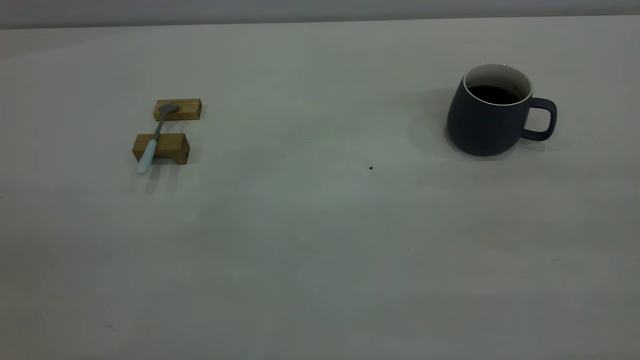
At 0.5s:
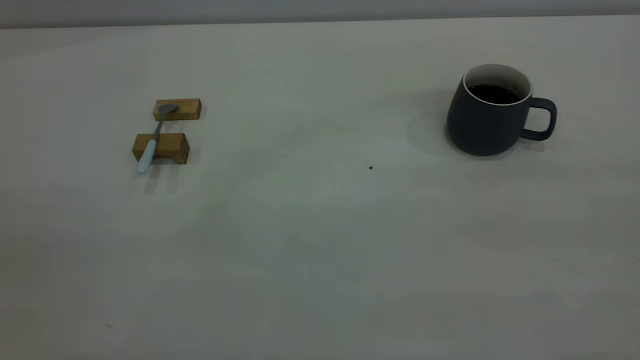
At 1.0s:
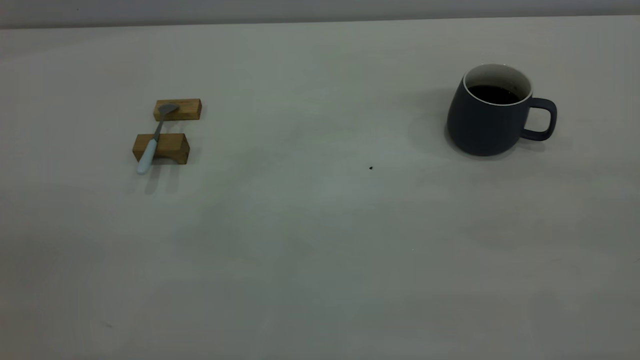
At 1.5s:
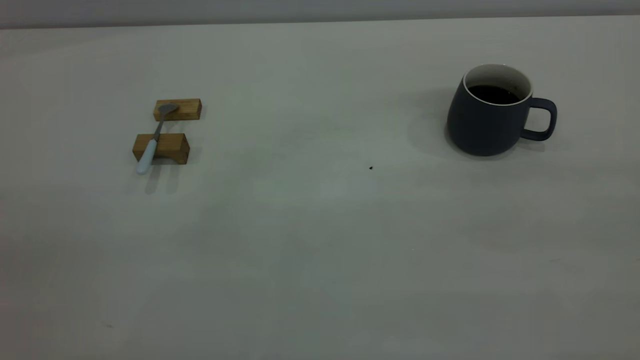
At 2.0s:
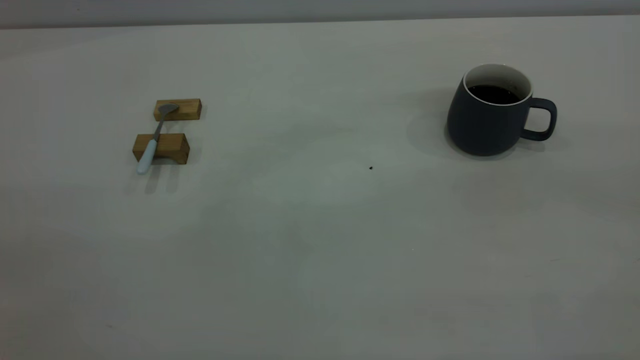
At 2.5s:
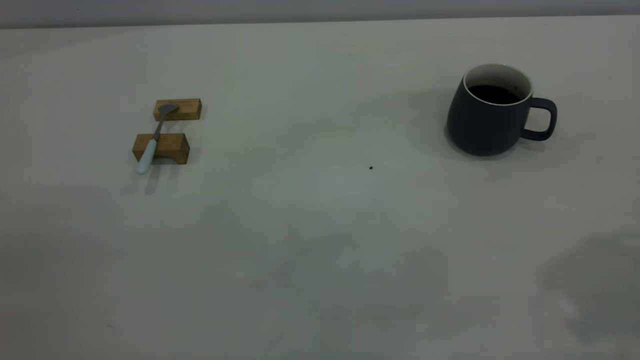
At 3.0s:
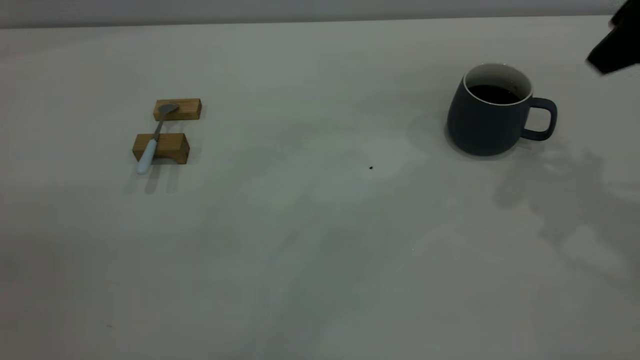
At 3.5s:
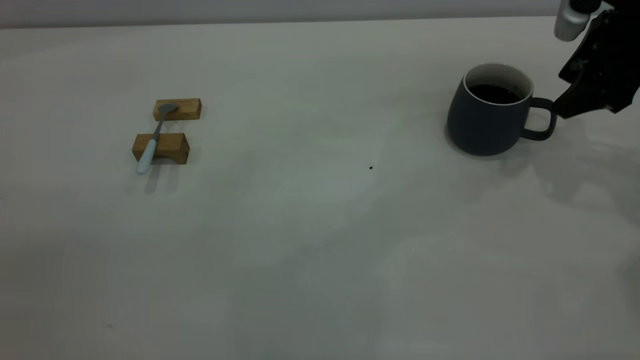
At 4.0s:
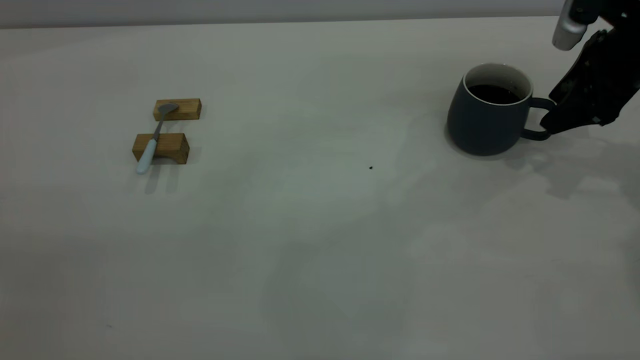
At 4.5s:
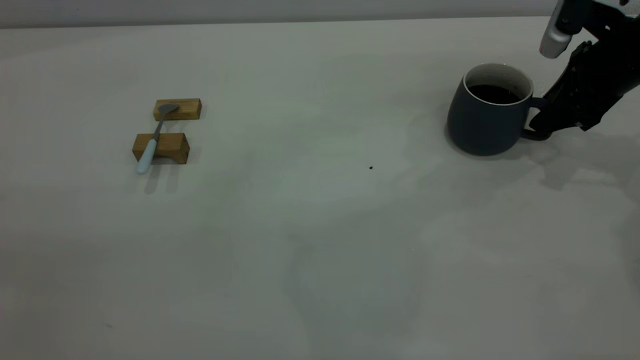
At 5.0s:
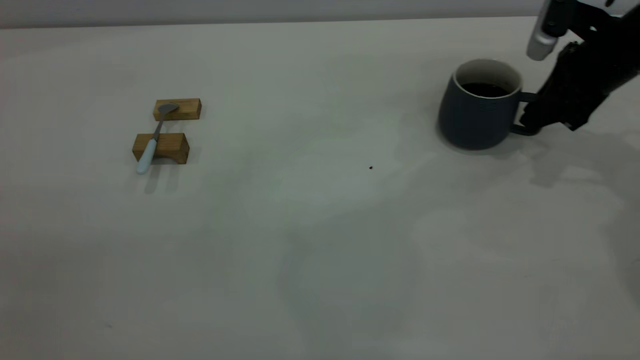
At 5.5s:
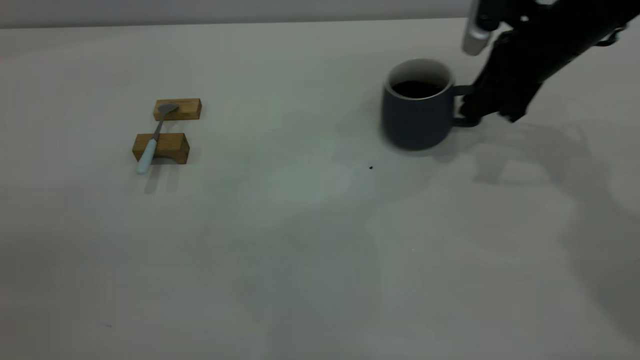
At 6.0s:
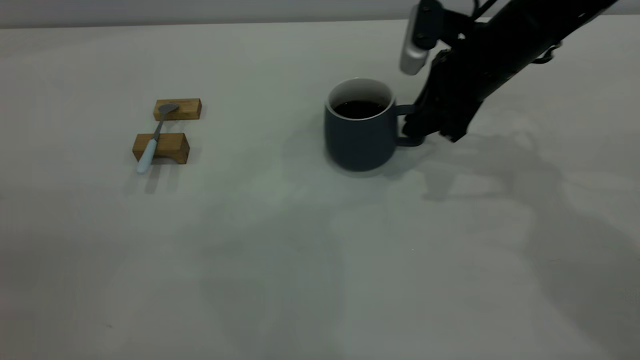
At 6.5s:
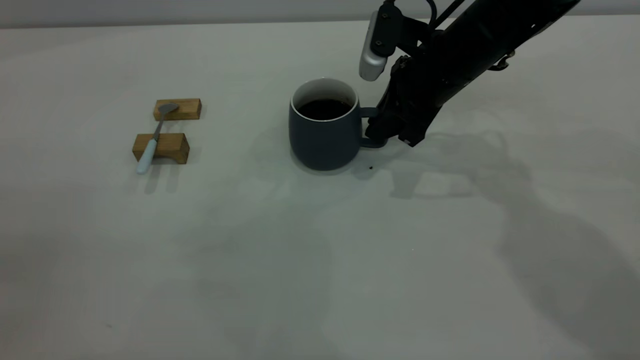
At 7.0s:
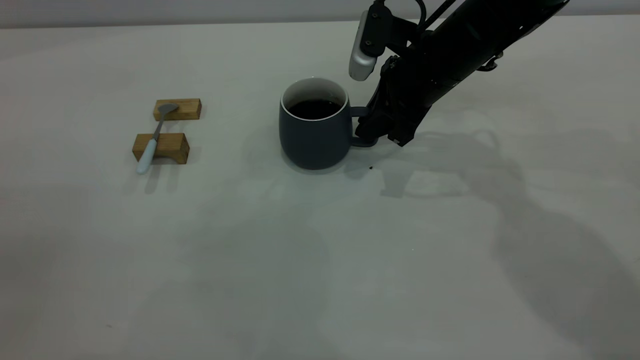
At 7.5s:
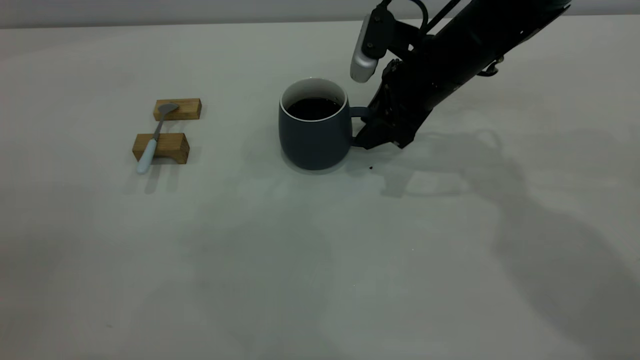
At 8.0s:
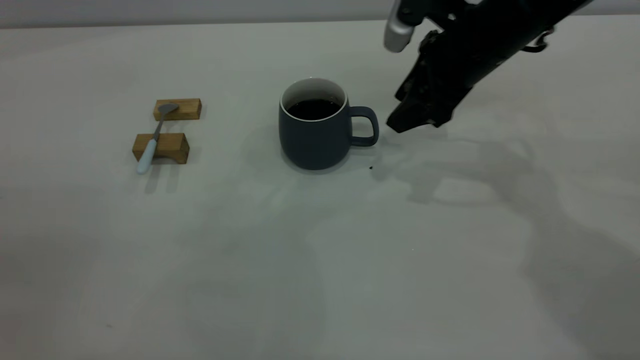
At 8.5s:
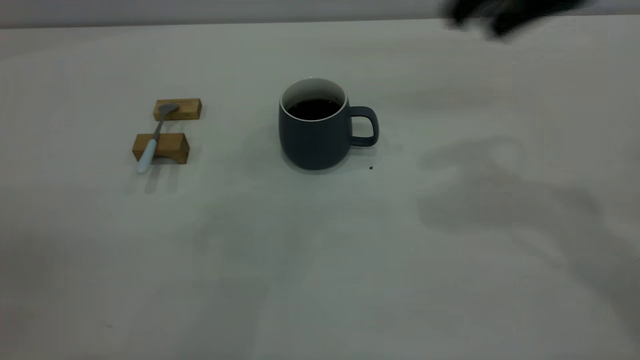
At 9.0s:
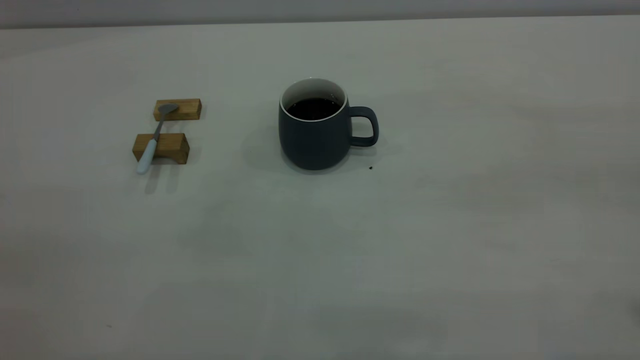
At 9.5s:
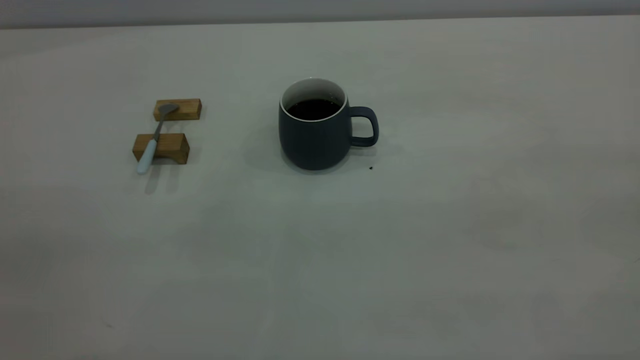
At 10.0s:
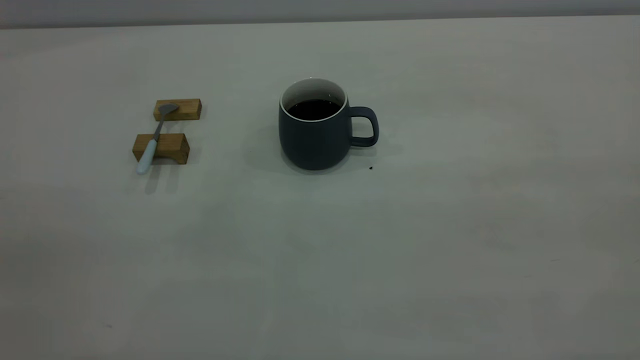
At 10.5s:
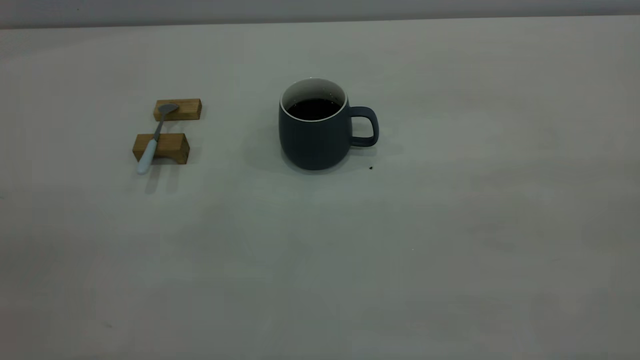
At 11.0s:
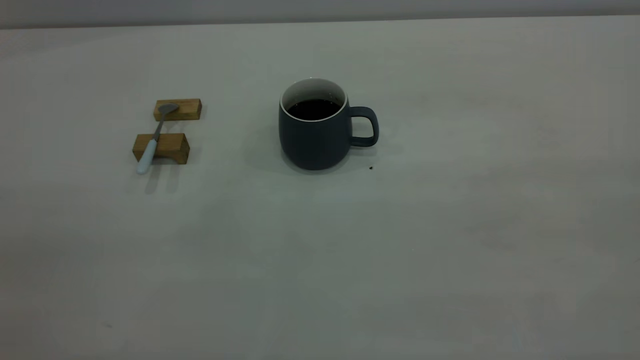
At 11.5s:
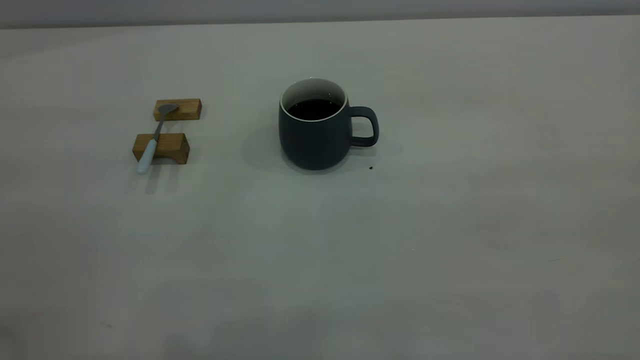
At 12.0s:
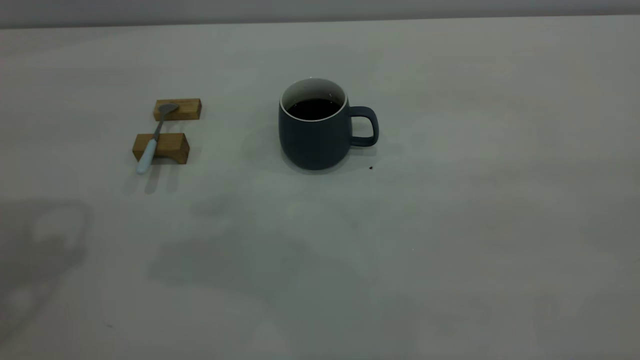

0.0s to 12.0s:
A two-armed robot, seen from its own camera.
Step, 0.0s to 8.0s: Move the cup with coffee to the center of view.
2.0s to 4.0s: The right gripper moves forward and downward, roughly 40 cm.
4.0s to 6.0s: The right gripper goes approximately 15 cm to the left, and closes.
6.0s to 8.0s: The right gripper opens up.
8.0s to 10.0s: The right gripper goes roughly 50 cm backward and upward.

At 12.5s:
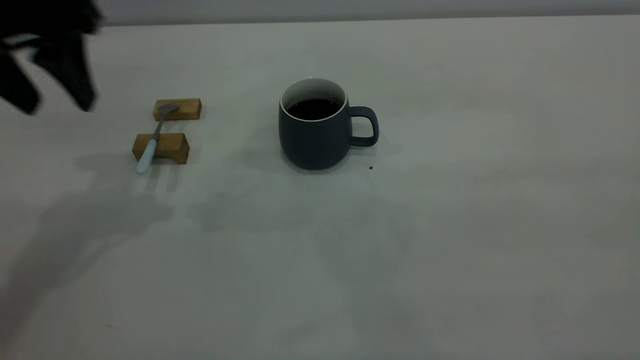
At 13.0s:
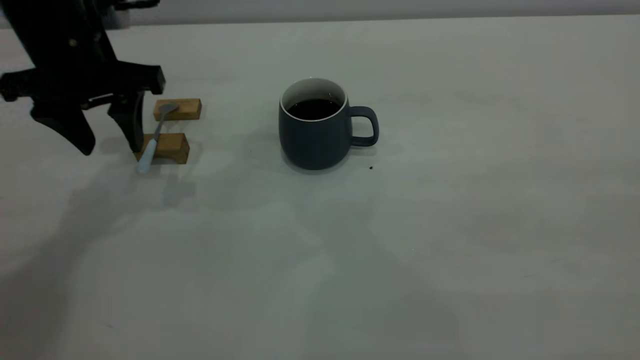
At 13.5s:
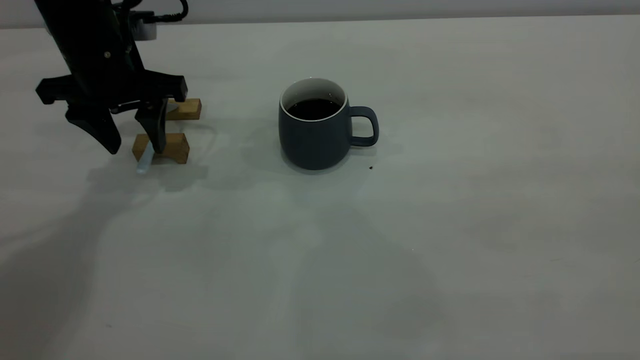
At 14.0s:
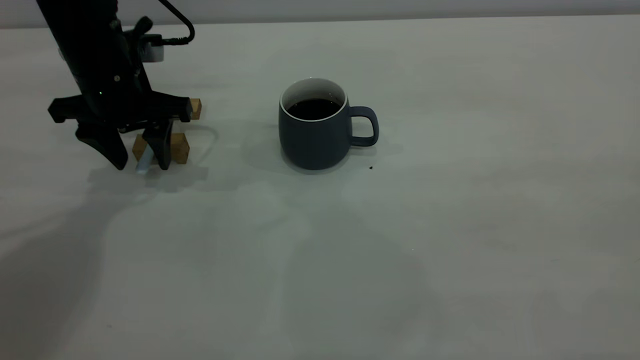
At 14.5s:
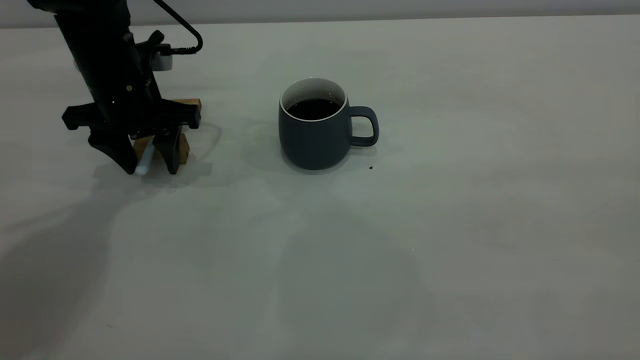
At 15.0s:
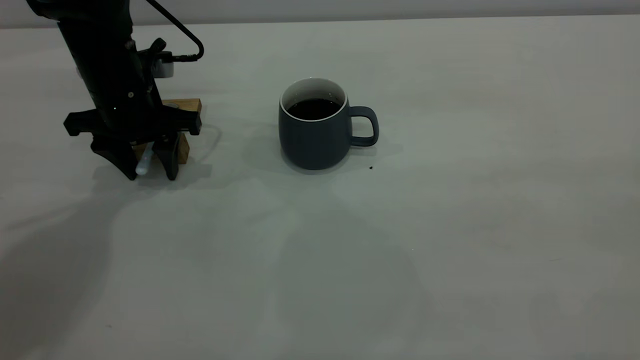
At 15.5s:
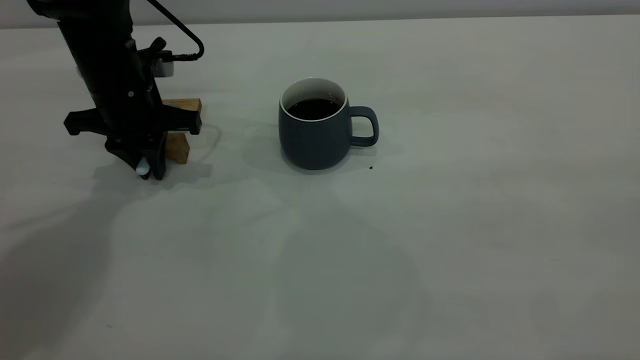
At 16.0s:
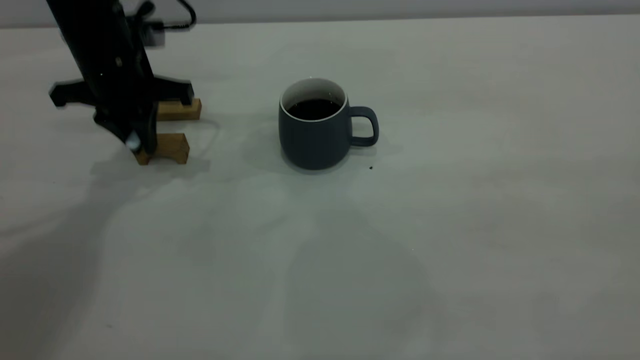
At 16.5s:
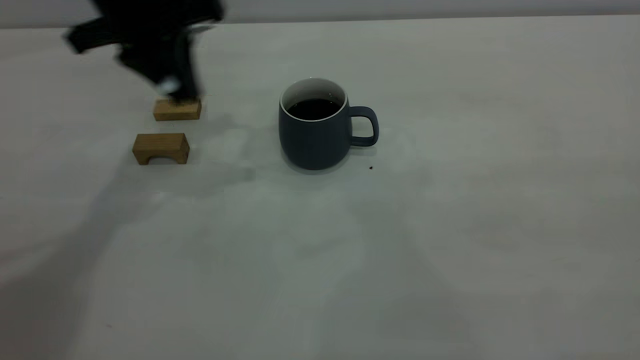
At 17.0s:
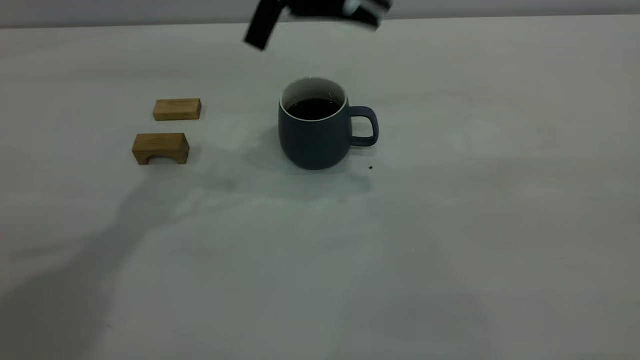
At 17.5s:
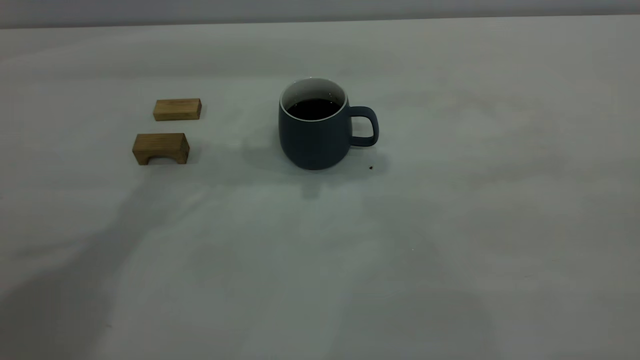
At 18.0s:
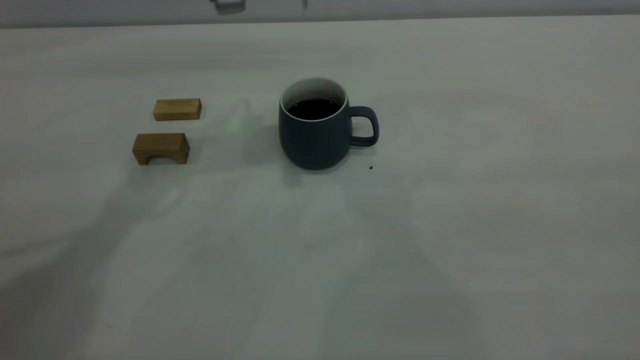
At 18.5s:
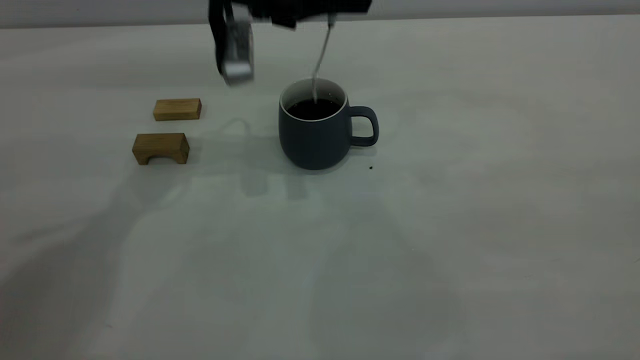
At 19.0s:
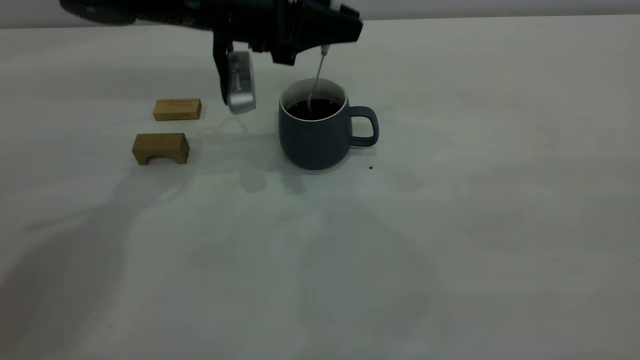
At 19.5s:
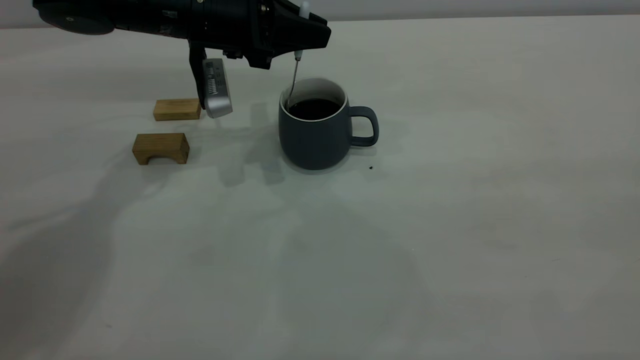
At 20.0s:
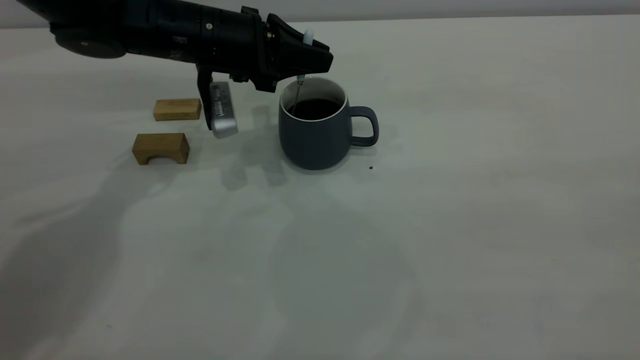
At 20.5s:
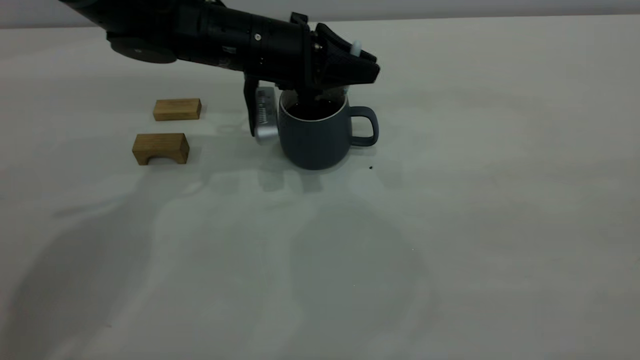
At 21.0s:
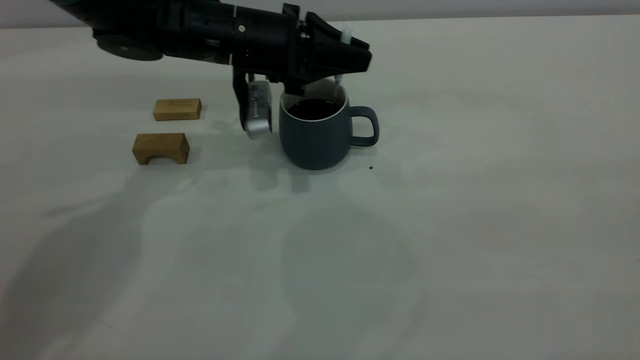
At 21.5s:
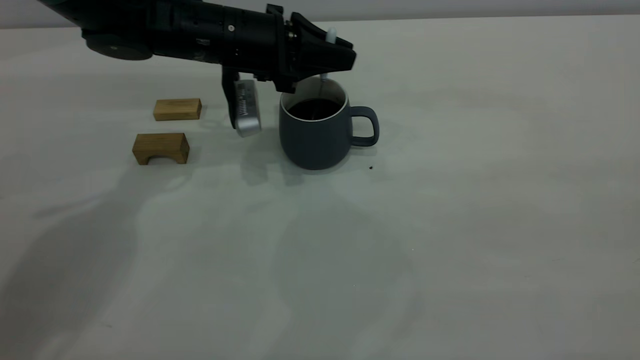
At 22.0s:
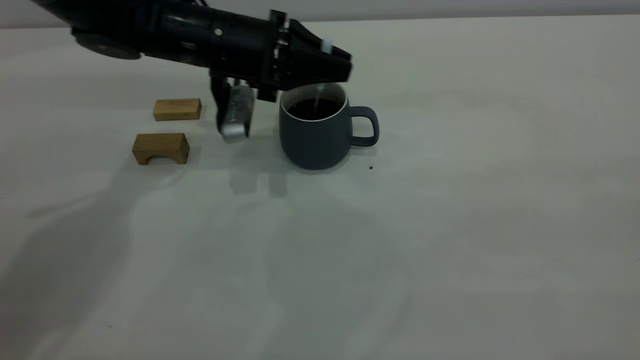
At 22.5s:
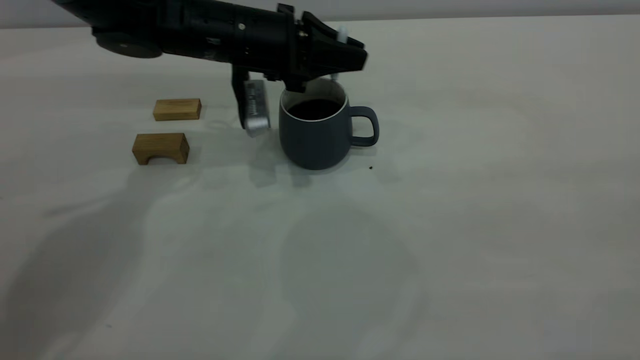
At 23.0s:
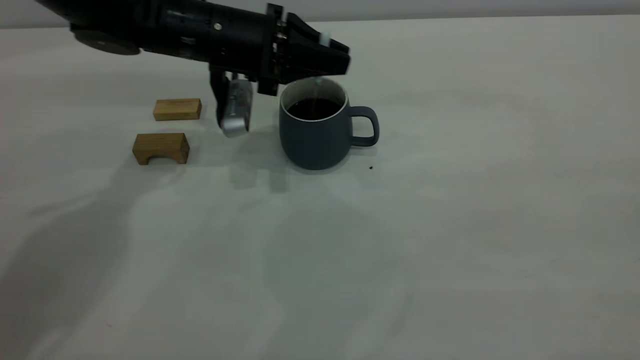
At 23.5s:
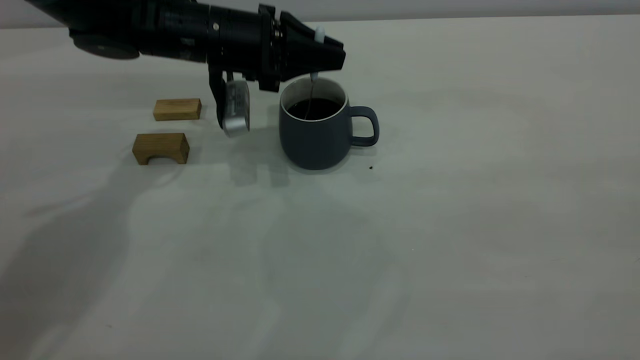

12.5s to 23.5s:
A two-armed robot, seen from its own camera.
Step, 12.5s to 16.0s: Pick up the spoon.
12.5s to 14.5s: The left gripper moves downward and forward, approximately 15 cm.
14.5s to 16.0s: The left gripper closes up.
16.0s to 18.0s: The left gripper heads to the right and upward, covering about 15 cm.
18.0s to 20.0s: The left gripper is displaced downward by some 15 cm.
20.0s to 23.5s: The grippers make only small movements.
